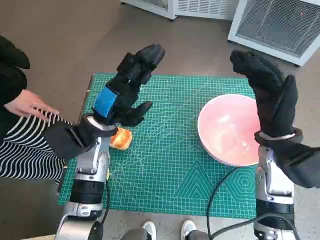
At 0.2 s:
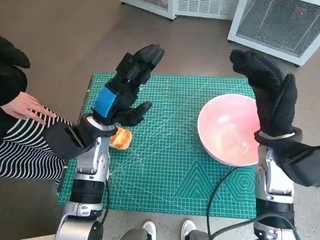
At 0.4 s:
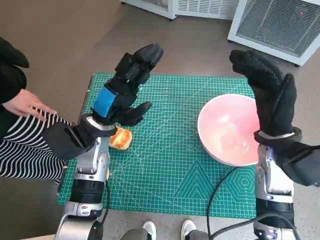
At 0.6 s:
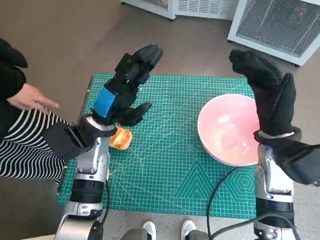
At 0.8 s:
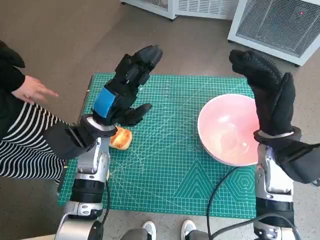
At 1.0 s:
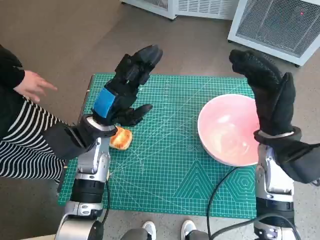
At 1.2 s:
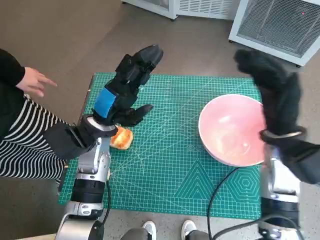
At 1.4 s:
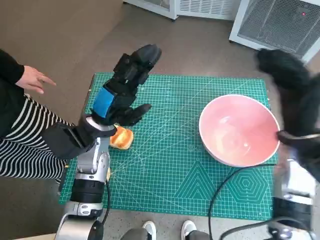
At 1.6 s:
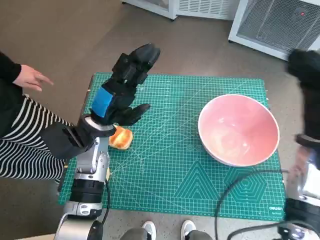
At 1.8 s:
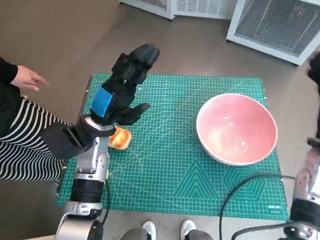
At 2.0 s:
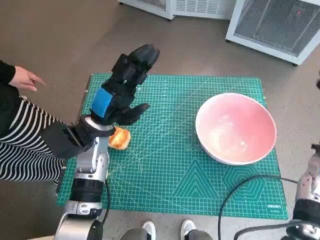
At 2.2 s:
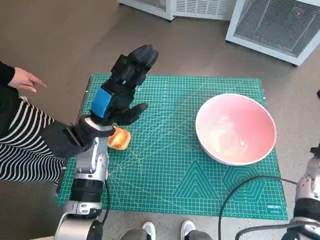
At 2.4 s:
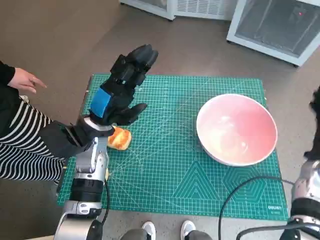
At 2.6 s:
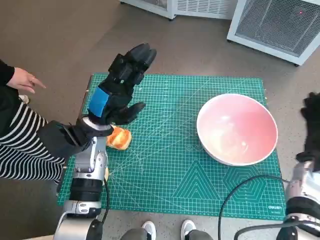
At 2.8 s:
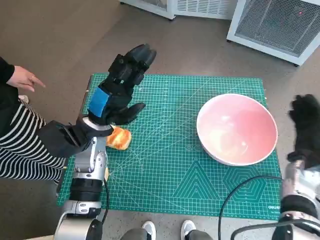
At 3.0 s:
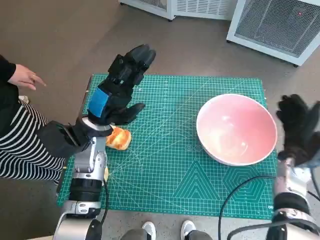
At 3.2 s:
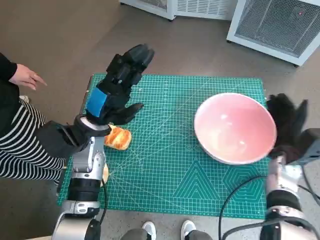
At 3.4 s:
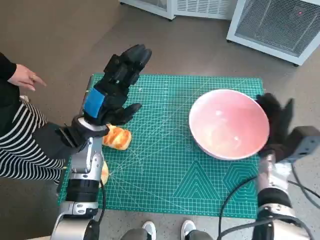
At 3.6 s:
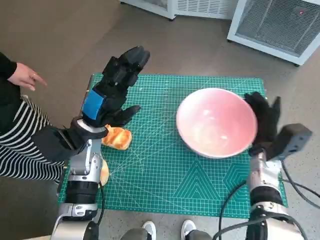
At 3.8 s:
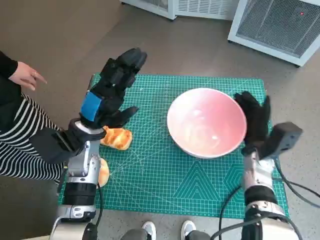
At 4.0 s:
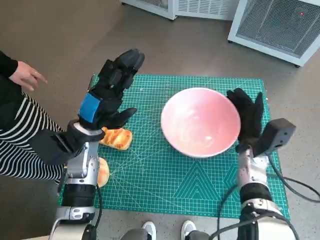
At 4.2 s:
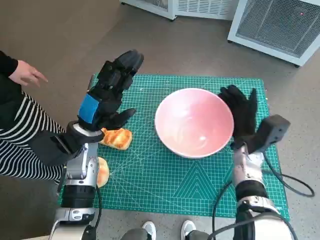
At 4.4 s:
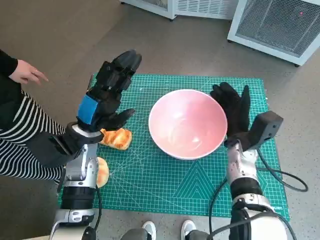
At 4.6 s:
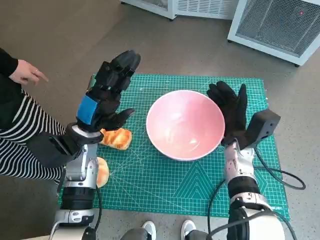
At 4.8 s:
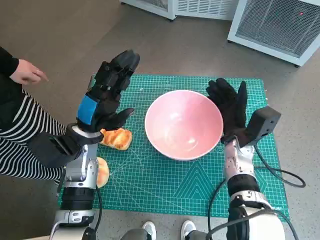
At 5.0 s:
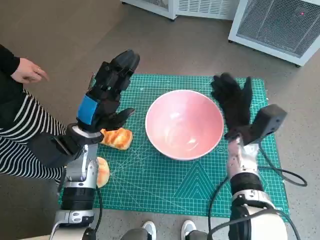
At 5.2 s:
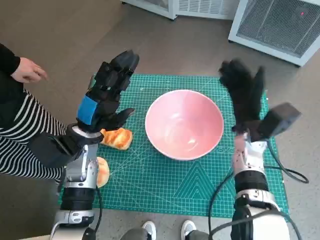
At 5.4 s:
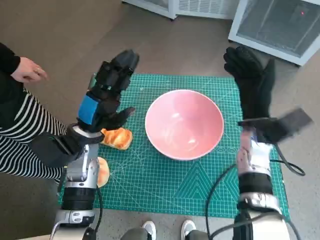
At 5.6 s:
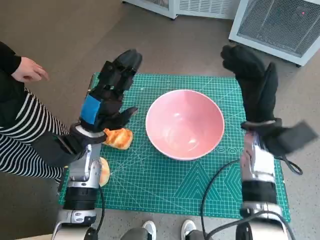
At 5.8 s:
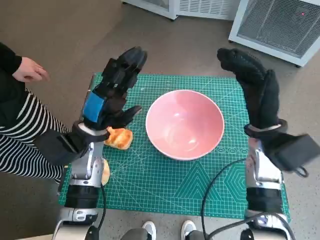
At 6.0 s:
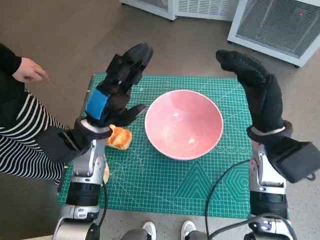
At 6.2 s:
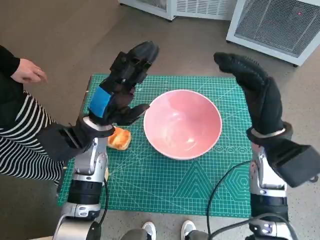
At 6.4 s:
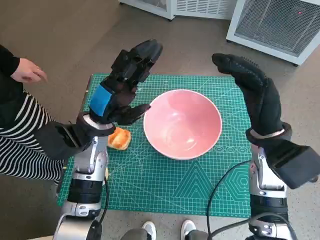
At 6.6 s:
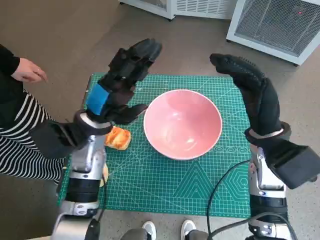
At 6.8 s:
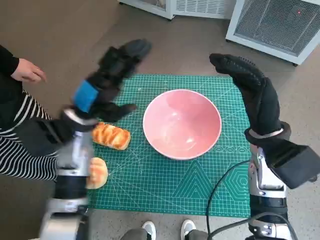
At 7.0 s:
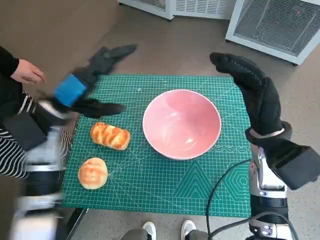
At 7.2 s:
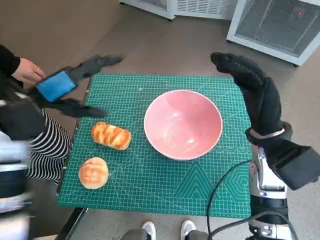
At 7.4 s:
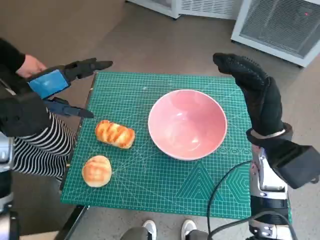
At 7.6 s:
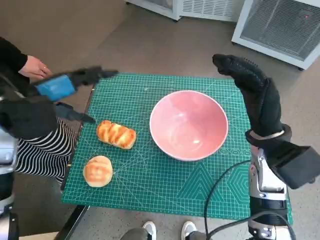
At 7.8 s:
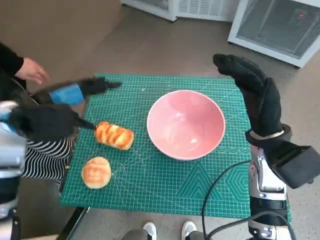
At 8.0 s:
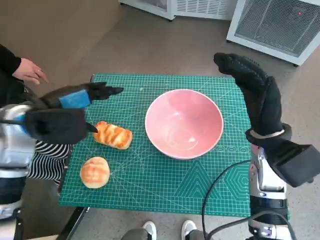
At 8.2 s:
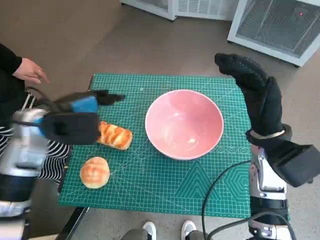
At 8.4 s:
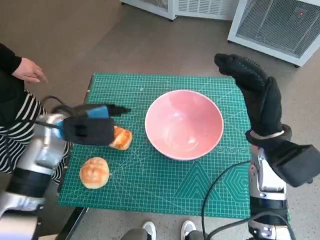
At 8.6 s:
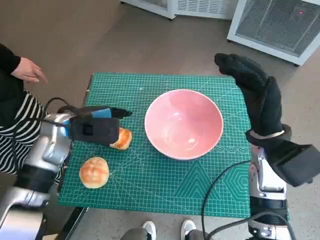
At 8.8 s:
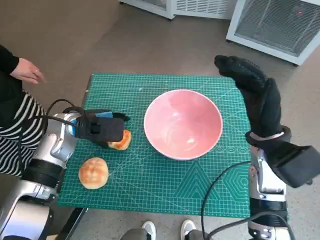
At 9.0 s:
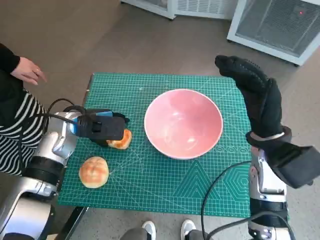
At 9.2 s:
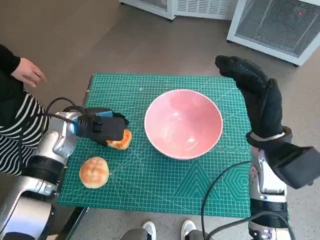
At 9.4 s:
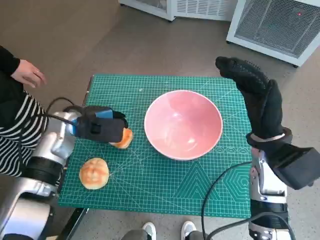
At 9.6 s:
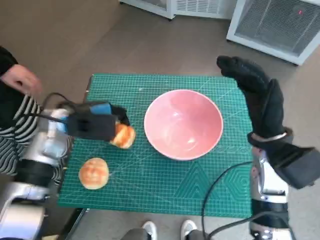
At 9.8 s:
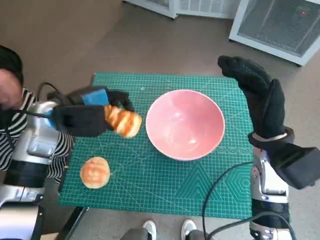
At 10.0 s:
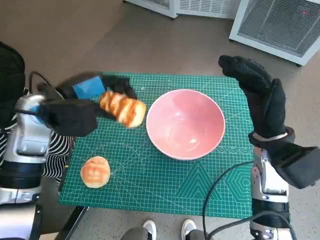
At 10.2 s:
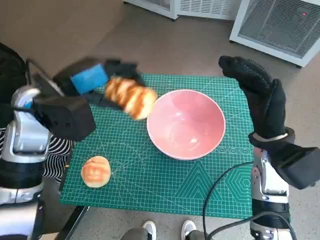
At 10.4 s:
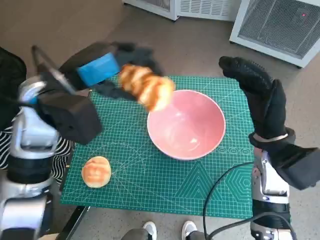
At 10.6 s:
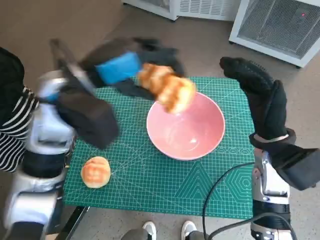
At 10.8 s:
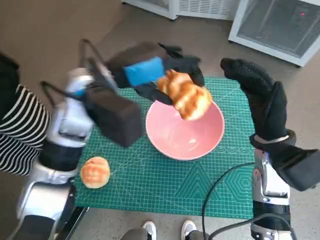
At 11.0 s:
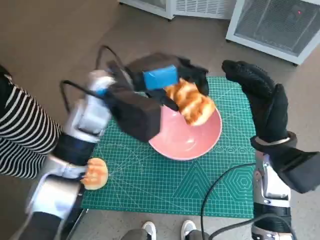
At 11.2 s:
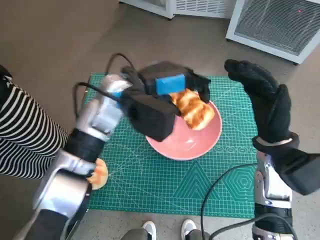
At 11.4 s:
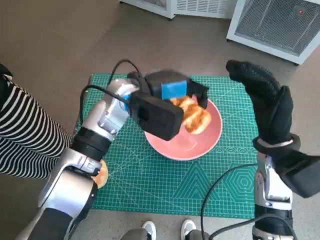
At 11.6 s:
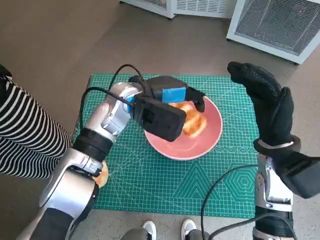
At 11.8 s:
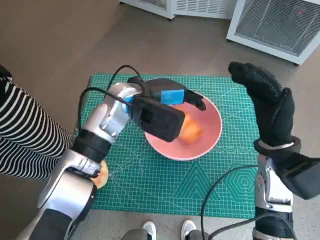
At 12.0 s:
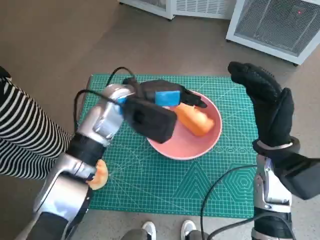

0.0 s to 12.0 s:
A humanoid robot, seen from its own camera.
Task of the whole recording: Push the bowl into the center of the table and put the bread into the bowl.
Step, 0.0 to 4.8 s: Move the pink bowl to the center of table with right hand.
Step, 5.2 to 9.4 s: Grasp the long bread with left hand.
1.6 to 3.0 s: The right hand travels downward by approximately 10 cm.
3.0 to 4.4 s: The right hand is displaced to the left by about 10 cm.
4.4 to 6.0 s: The right hand shifts about 10 cm upward.
6.0 to 7.6 s: The left hand goes roughly 15 cm upward and to the left.
7.6 to 9.0 s: The left hand shifts approximately 10 cm downward.
9.0 to 10.4 s: The left hand moves upward, some 15 cm.
10.4 to 12.0 s: The left hand shifts about 10 cm to the right, downward and forward.

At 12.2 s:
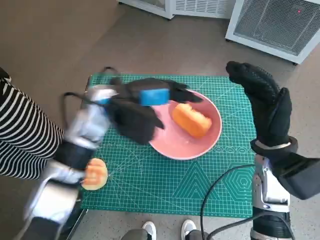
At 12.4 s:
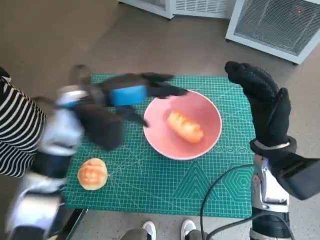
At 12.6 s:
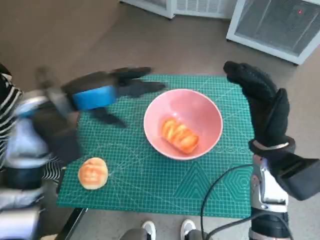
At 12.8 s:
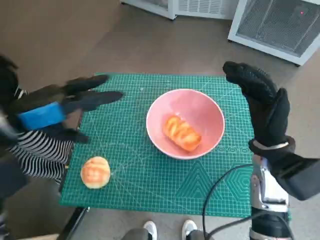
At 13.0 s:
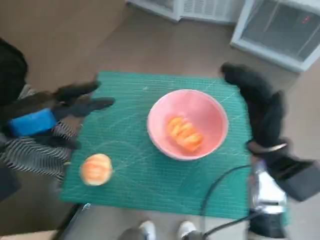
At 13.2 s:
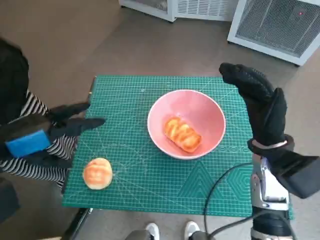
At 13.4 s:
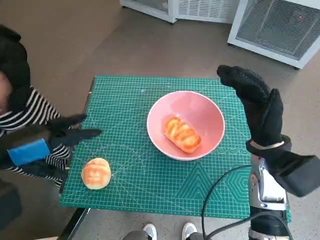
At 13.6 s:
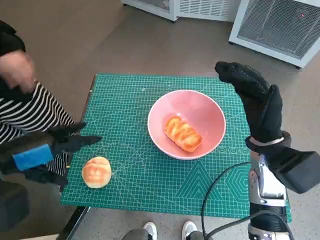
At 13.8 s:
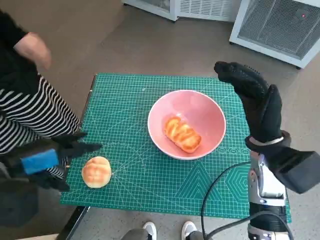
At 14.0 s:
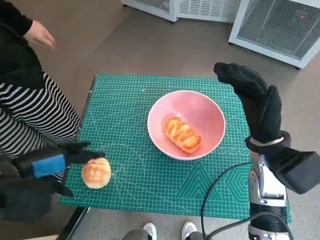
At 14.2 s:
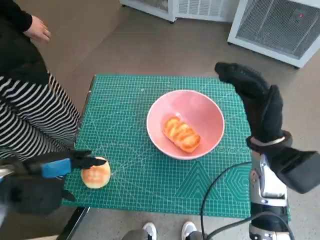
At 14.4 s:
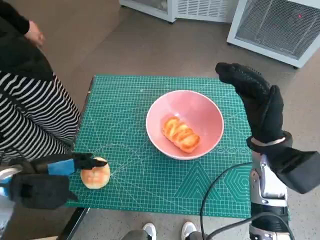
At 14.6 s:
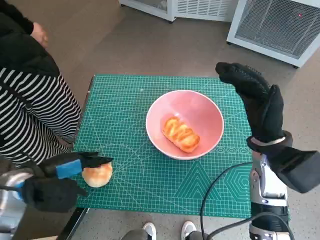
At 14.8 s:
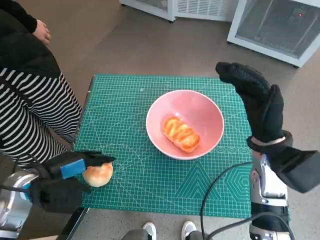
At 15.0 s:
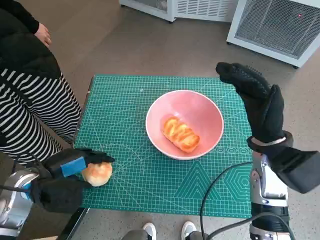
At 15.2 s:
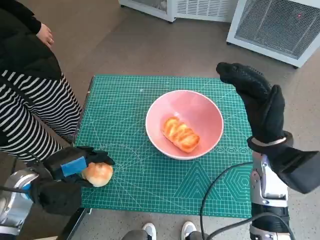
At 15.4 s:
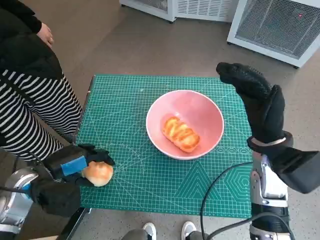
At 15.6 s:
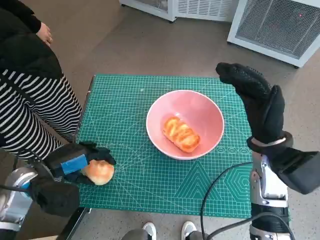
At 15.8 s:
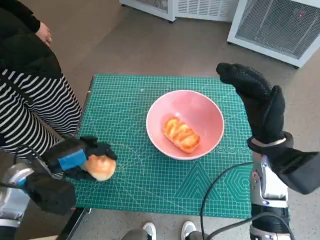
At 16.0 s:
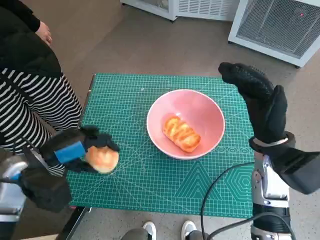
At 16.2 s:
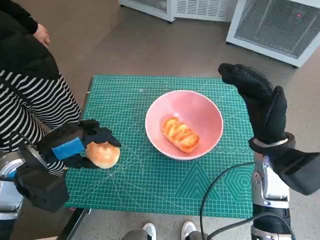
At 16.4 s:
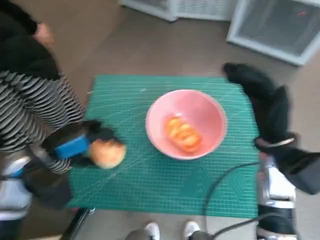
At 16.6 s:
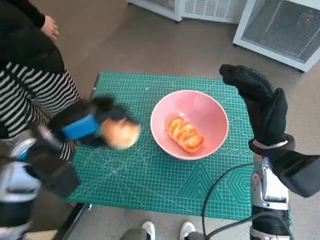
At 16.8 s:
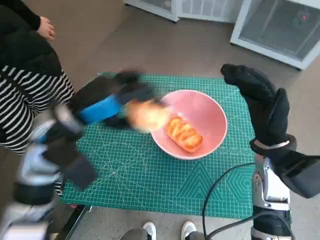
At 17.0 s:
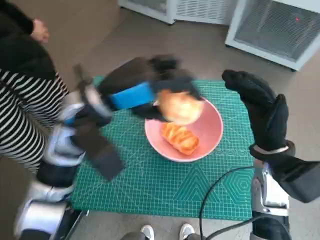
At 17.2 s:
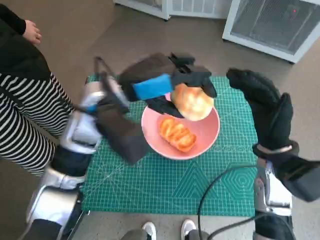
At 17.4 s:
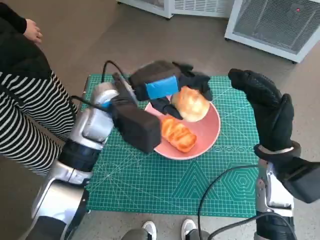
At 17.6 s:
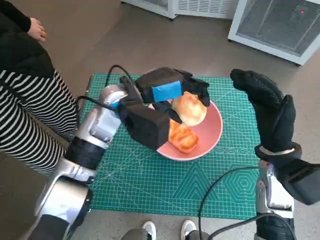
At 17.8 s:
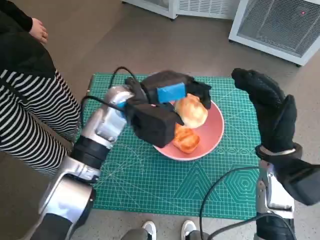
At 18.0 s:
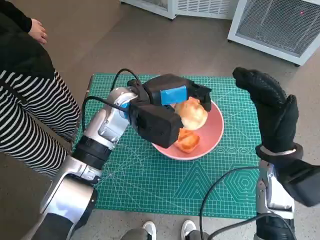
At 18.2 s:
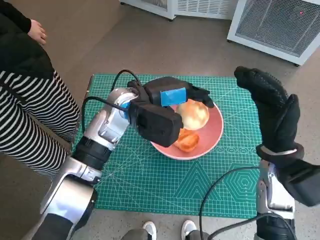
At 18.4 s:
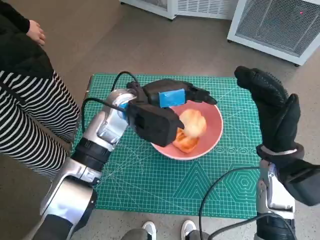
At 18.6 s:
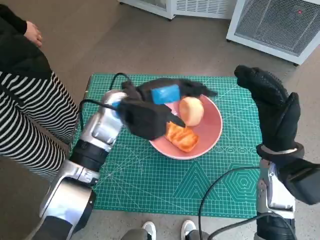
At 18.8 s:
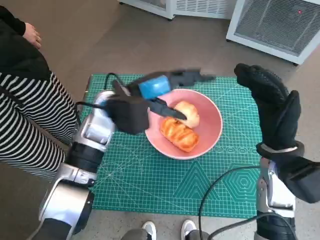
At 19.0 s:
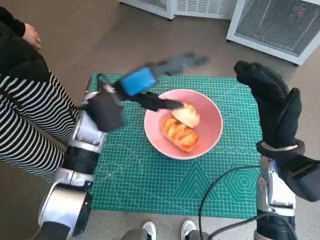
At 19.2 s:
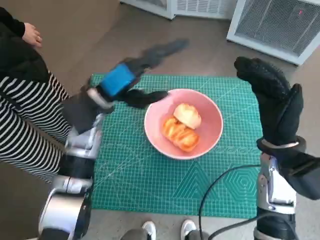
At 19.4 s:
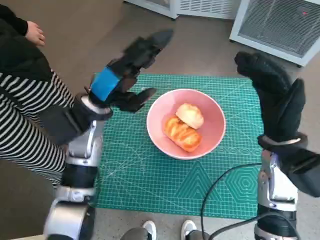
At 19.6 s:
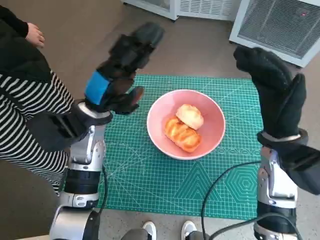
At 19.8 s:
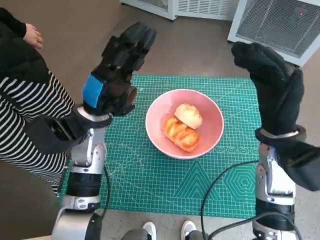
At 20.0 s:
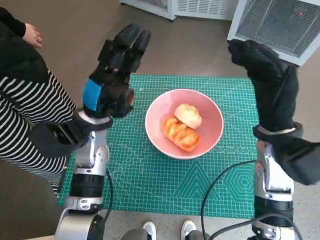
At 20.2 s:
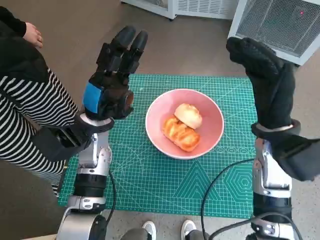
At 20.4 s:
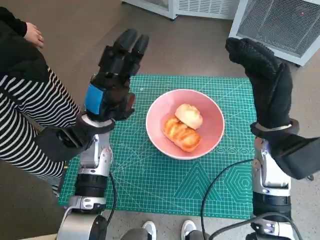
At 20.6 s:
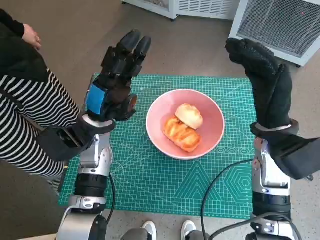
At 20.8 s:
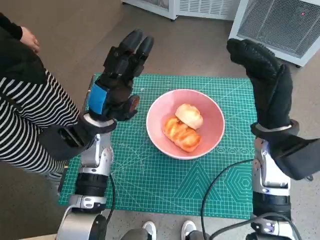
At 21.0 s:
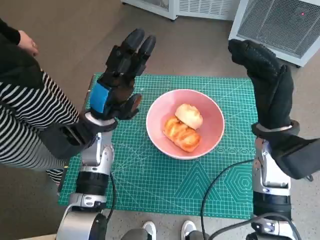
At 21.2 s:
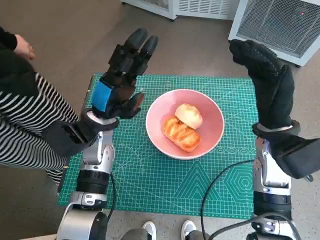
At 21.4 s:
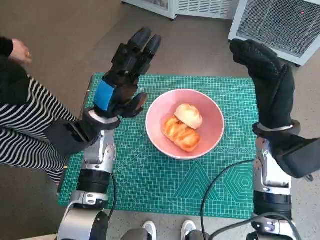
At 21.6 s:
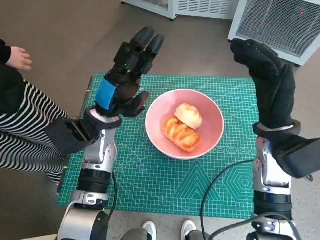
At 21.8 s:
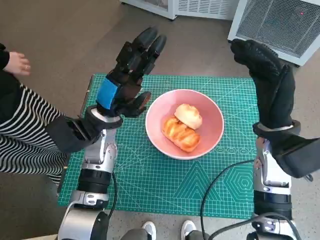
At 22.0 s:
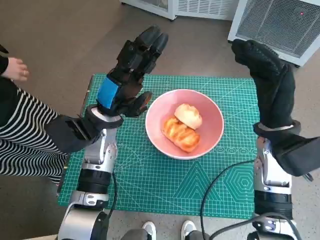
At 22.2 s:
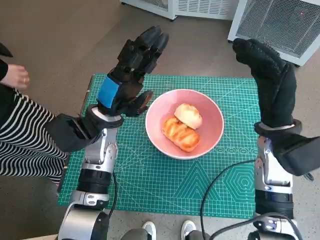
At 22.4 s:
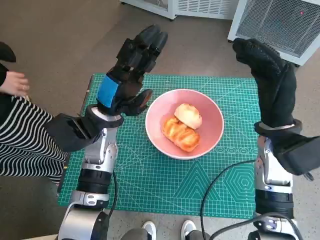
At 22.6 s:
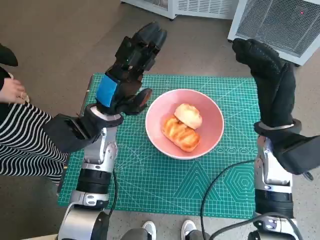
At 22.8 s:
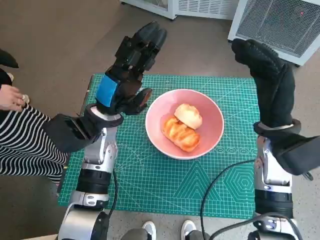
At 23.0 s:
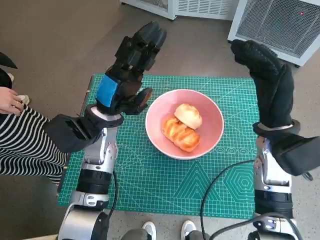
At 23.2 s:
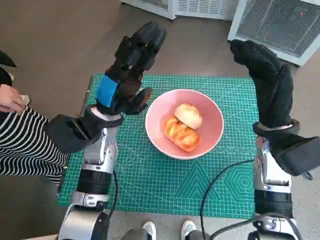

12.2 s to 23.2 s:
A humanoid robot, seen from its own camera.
Task of the whole recording: Push the bowl into the center of the table and put the bread into the bowl.
Step, 12.6 to 15.4 s: Grasp the round bread with left hand.
Step, 15.6 to 18.8 s: Place the round bread in pink bowl with left hand.
12.2 to 13.8 s: The left hand heads to the left and backward, covering roughly 20 cm.
13.8 to 15.4 s: The left hand heads downward, covering some 10 cm.
15.4 to 17.0 s: The left hand moves to the right, upward and forward, roughly 20 cm.
17.0 to 18.4 s: The left hand shifts about 5 cm to the right and forward.
18.4 to 20.0 s: The left hand heads to the left, covering roughly 10 cm.
21.6 to 23.2 s: Neither hand changes place.
